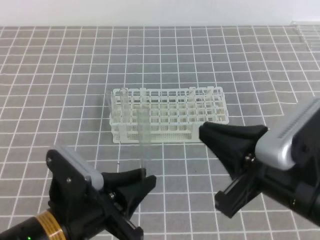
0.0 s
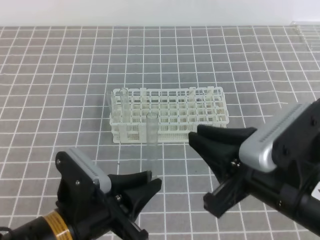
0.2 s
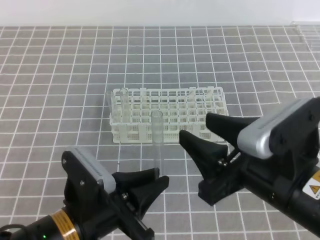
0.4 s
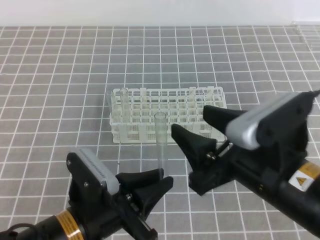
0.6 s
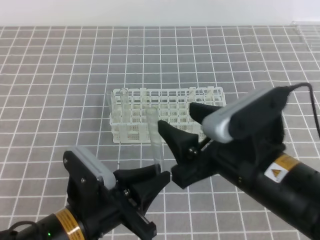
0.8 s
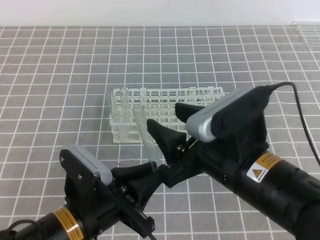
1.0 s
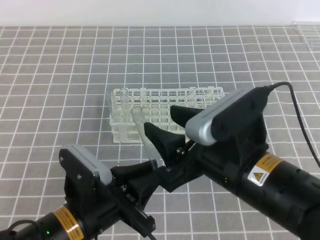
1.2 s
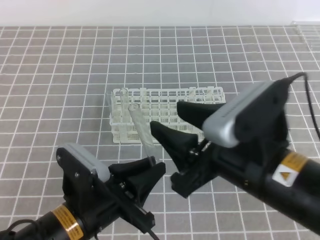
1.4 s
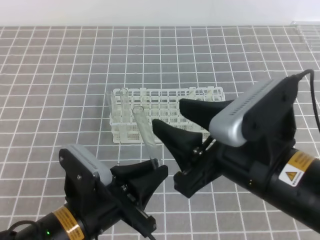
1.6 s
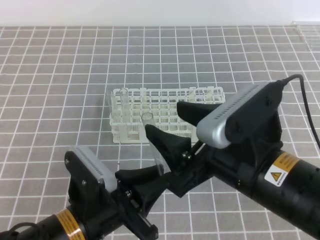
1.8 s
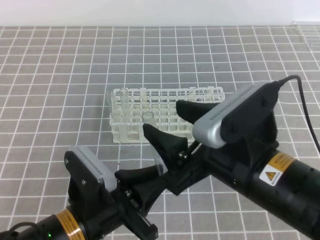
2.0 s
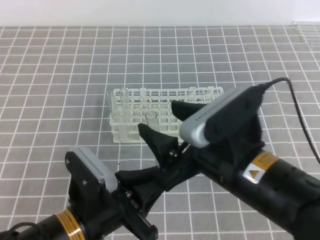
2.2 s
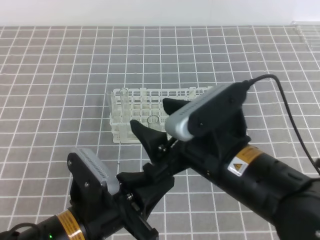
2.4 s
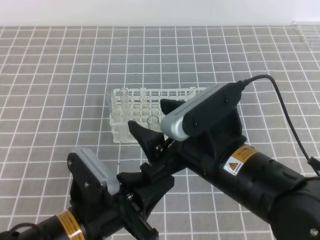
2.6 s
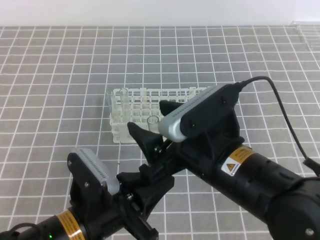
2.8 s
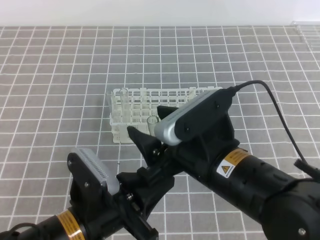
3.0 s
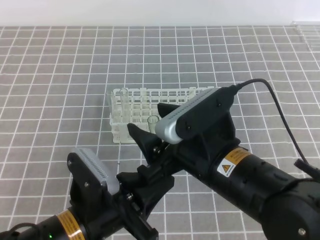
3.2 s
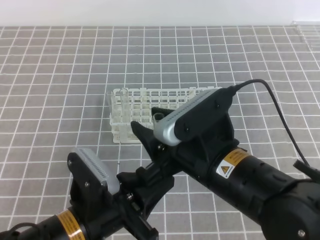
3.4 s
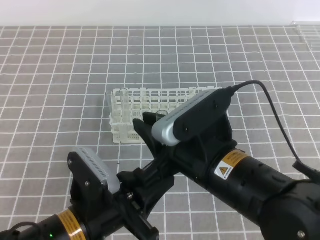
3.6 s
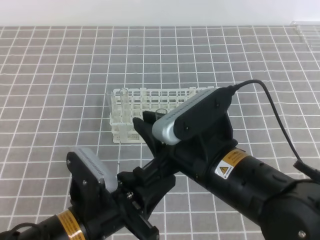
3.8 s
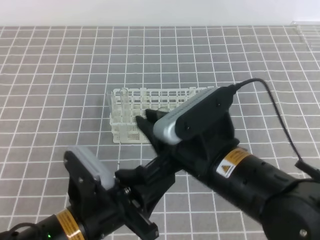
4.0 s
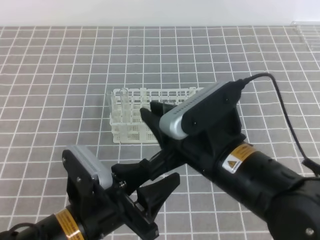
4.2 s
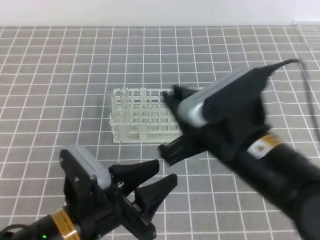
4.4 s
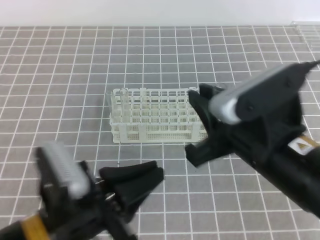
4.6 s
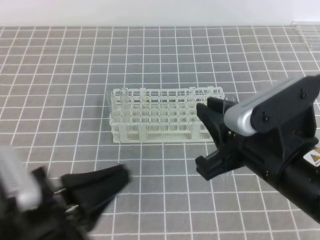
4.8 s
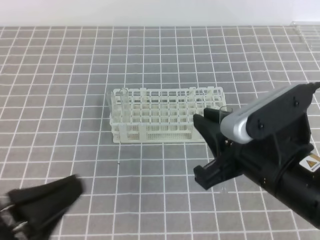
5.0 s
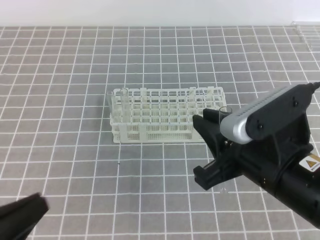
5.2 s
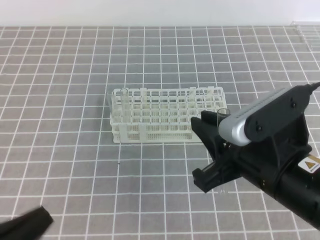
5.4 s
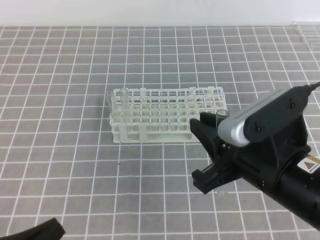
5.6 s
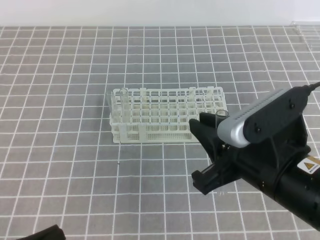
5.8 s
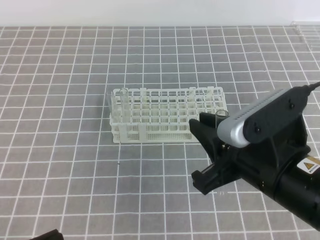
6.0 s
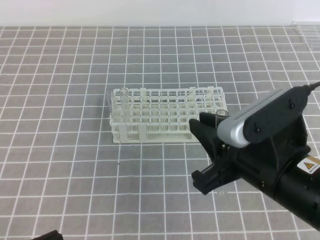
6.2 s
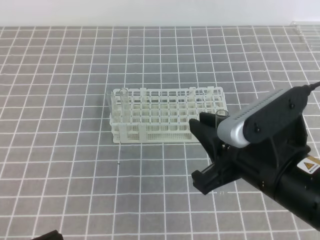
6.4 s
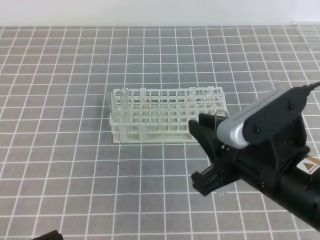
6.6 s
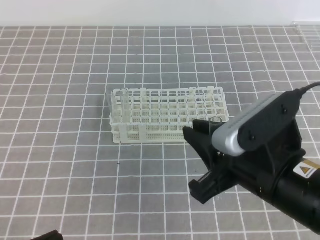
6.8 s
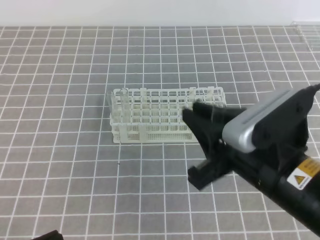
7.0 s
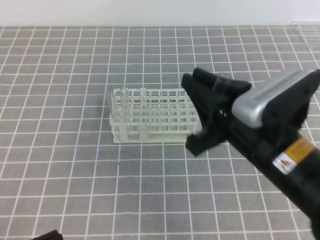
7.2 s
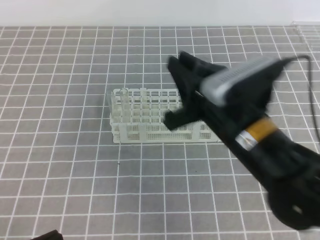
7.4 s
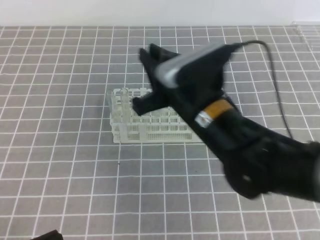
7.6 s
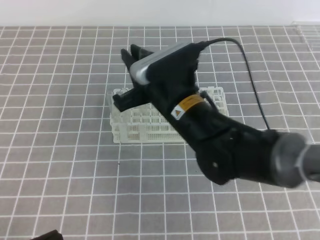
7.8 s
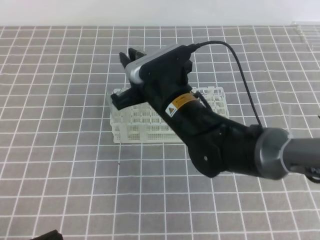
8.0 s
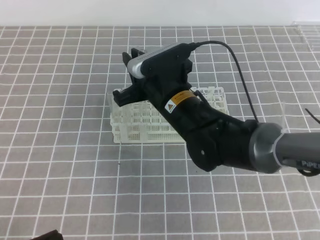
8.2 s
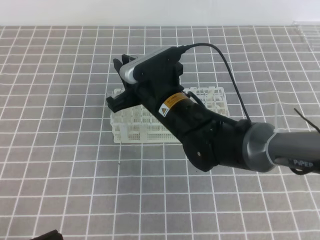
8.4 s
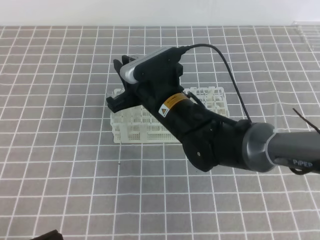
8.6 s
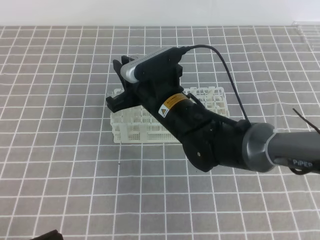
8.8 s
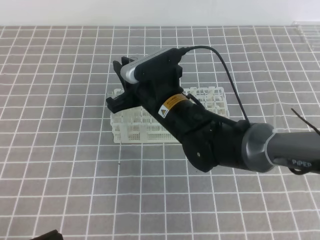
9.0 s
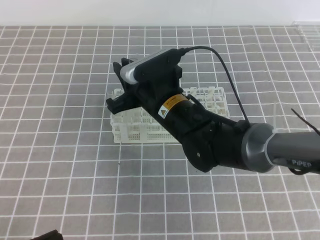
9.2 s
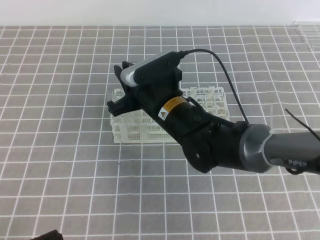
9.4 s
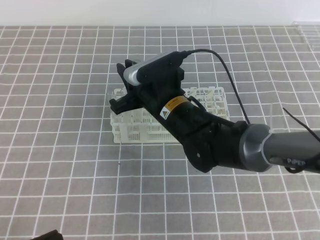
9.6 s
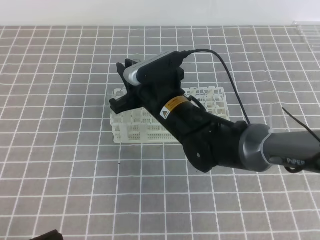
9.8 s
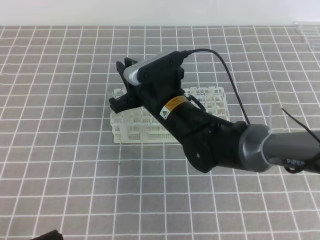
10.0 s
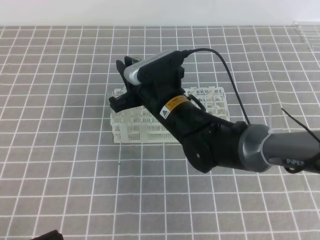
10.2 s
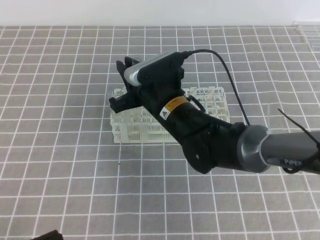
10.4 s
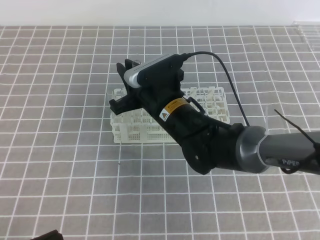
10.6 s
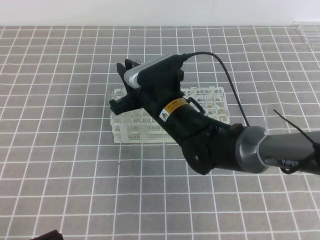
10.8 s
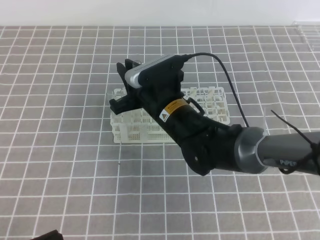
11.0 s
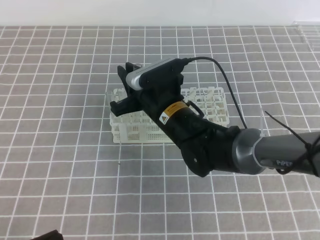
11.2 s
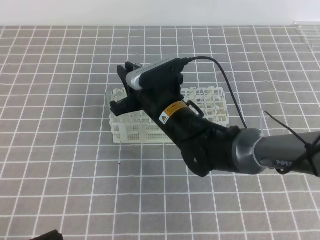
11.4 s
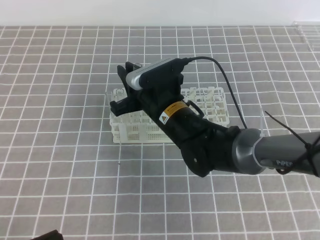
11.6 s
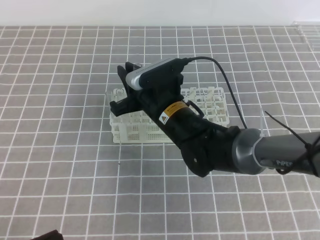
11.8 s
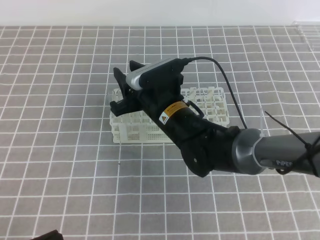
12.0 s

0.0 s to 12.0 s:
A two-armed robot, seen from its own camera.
0.0 to 1.6 s: The right gripper opens its fingers.
1.6 to 3.0 s: The right gripper changes place by roughly 5 cm.
3.0 to 4.4 s: The right gripper closes up; the left gripper opens up.
4.4 to 6.0 s: The left gripper heads to the left and backward, covering some 15 cm, and closes up.
6.0 to 7.6 s: The right gripper goes about 10 cm forward and to the left.
7.6 to 9.0 s: The right gripper goes approximately 10 cm forward and to the left.
9.0 to 10.4 s: The two grippers keep their place.
10.4 to 12.0 s: Both grippers stay put.

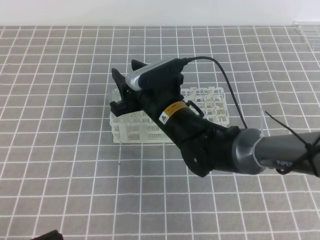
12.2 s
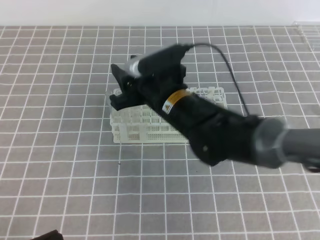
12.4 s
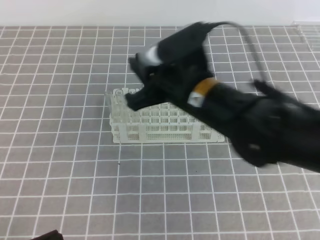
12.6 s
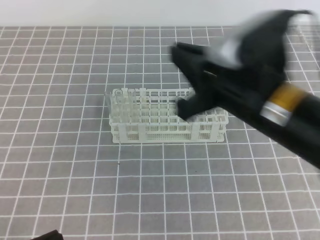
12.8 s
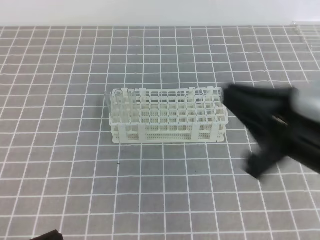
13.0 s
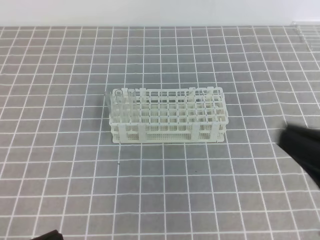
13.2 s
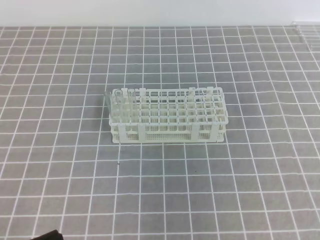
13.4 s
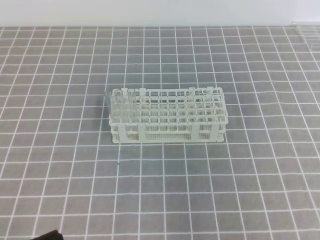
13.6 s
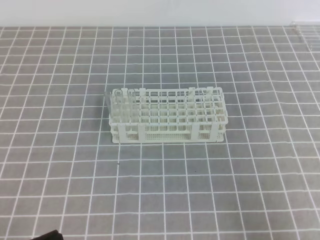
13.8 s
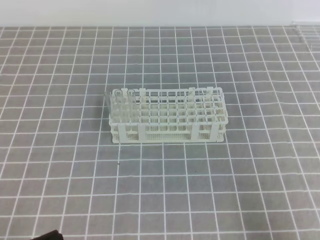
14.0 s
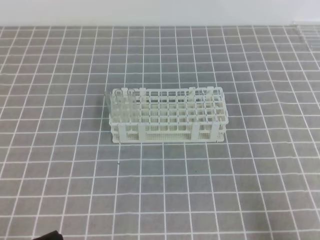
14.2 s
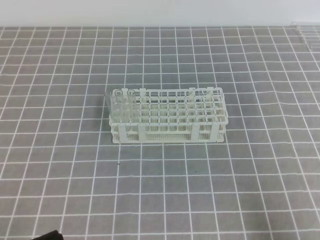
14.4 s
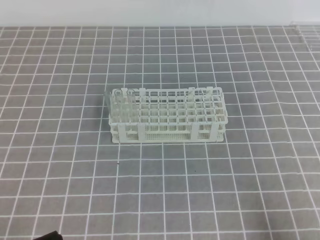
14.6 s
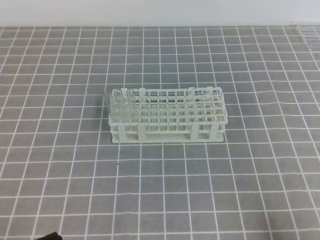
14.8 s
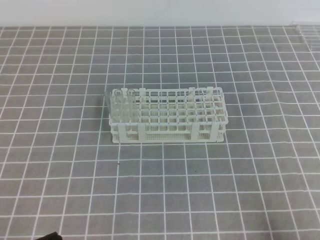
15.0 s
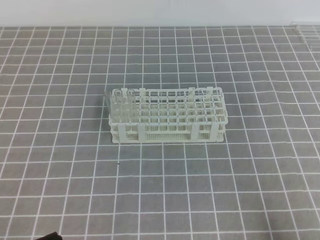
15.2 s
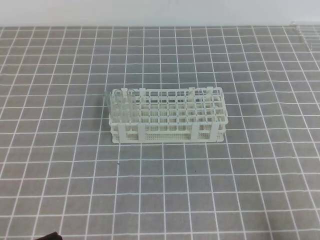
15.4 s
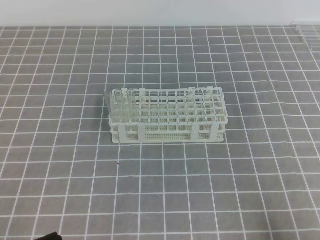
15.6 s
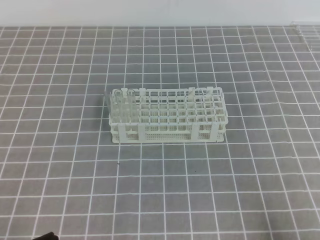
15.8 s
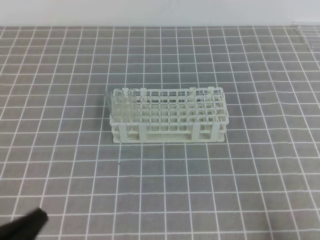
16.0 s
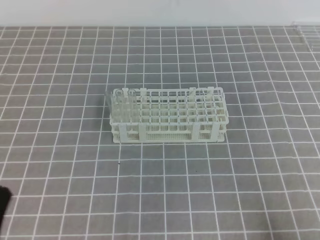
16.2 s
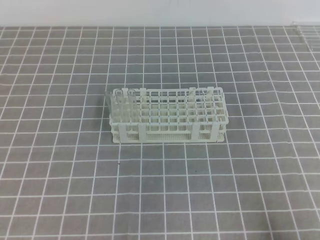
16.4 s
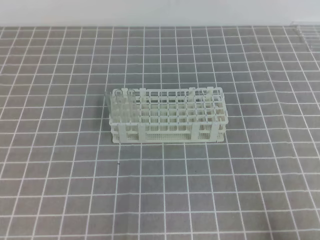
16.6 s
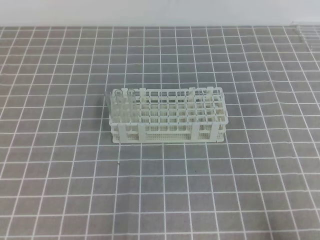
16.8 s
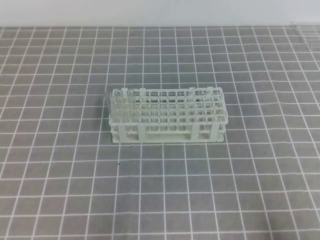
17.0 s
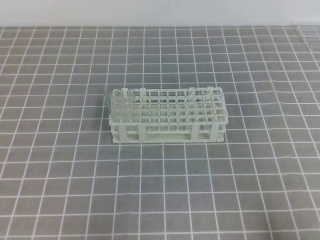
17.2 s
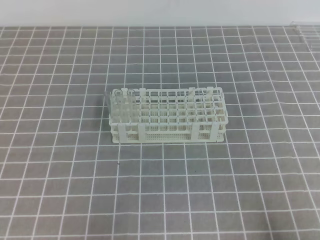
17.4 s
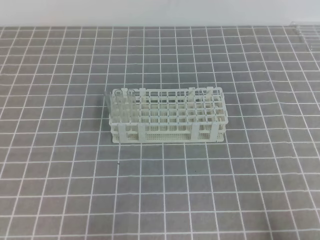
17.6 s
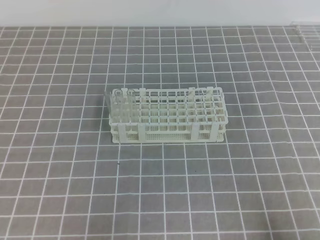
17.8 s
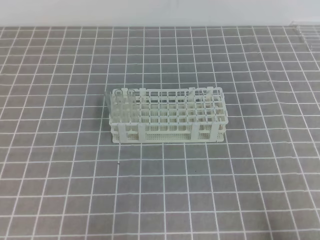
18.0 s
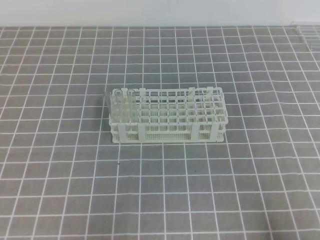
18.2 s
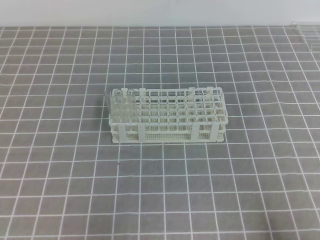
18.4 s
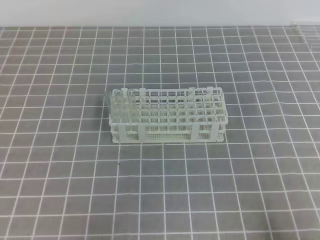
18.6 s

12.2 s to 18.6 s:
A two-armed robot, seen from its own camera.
12.2 to 13.8 s: The right gripper goes approximately 40 cm backward and to the right, and closes up.
13.8 to 15.4 s: The right gripper travels downward by roughly 5 cm.

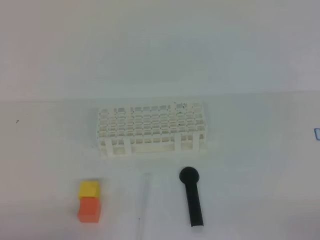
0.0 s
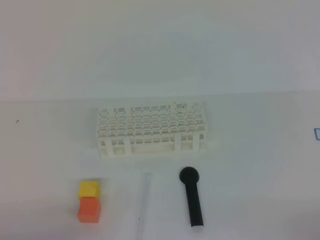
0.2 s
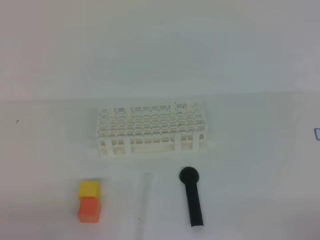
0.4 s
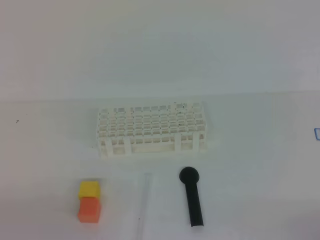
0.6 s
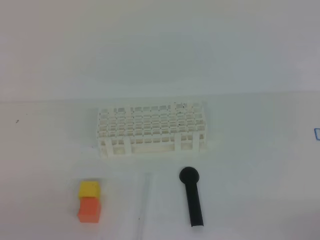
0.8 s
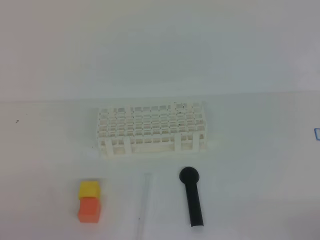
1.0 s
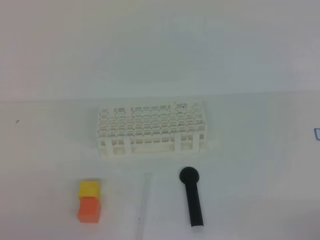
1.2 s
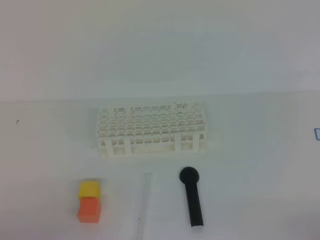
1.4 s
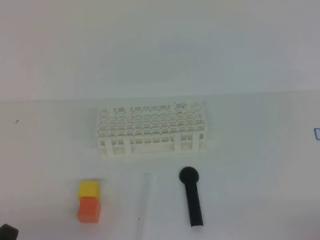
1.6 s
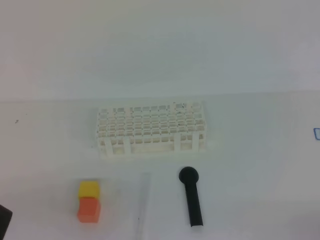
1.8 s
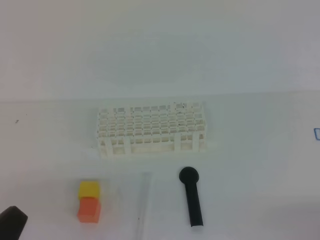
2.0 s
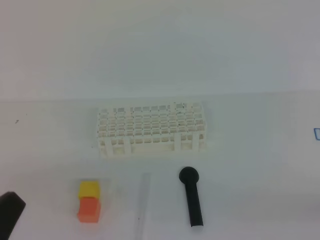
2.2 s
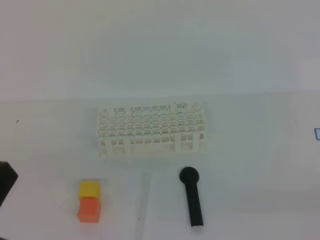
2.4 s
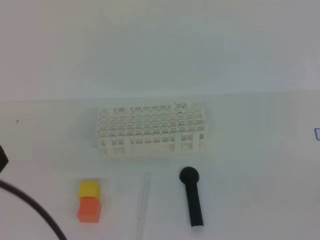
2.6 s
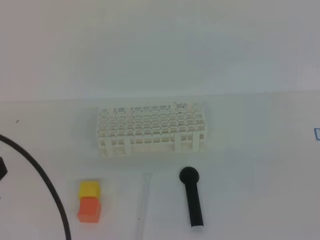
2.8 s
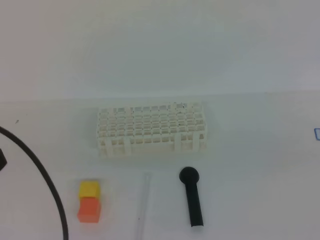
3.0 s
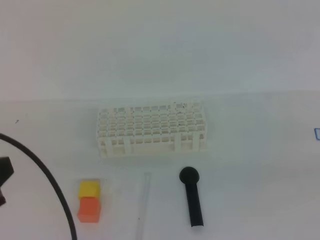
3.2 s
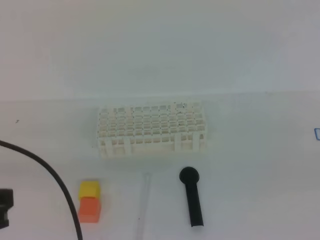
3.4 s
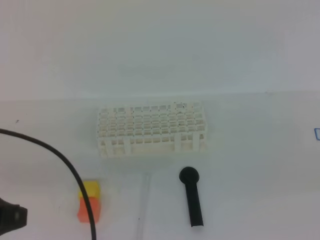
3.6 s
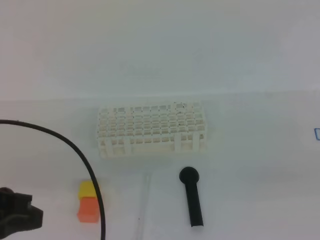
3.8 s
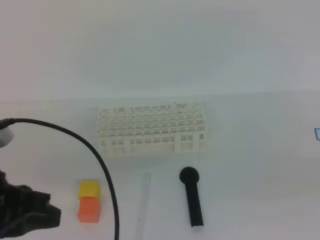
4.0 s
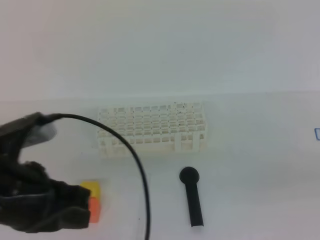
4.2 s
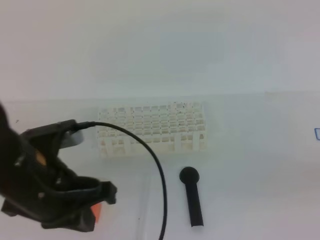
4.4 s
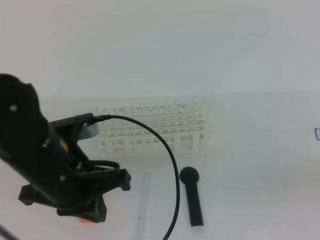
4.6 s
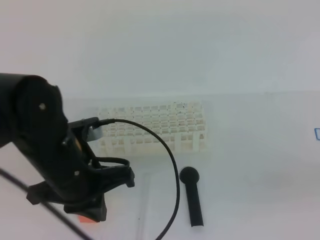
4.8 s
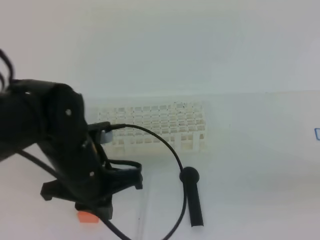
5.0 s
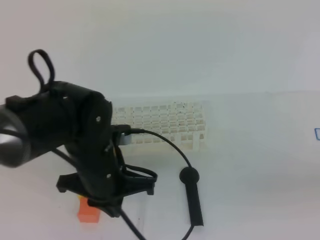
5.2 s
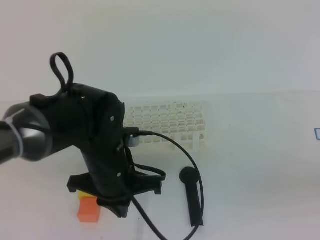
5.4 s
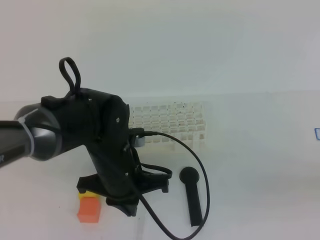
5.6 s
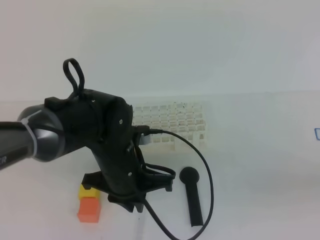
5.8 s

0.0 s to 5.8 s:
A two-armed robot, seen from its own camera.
1.4 to 2.8 s: The left gripper moves upward, some 15 cm.
2.8 to 4.4 s: The right gripper heads to the left, covering roughly 5 cm. The left gripper travels forward and to the right by approximately 10 cm.
4.4 to 5.8 s: The left gripper goes about 15 cm to the right, downward and forward.
